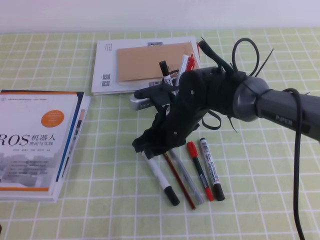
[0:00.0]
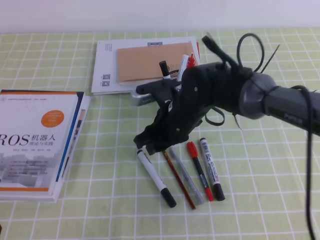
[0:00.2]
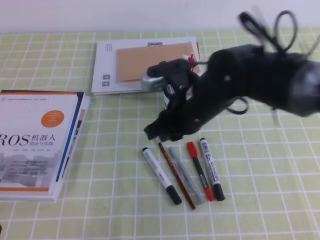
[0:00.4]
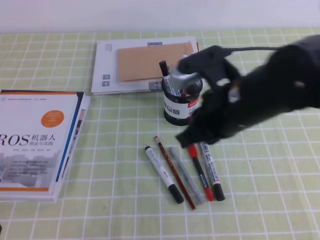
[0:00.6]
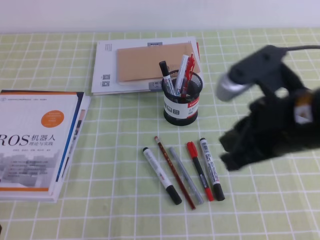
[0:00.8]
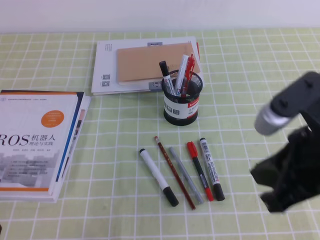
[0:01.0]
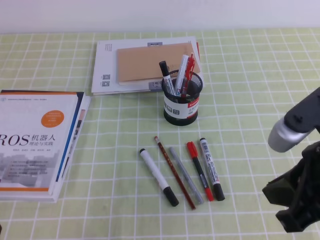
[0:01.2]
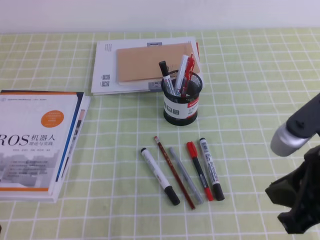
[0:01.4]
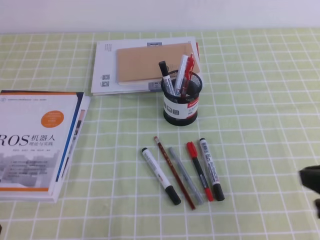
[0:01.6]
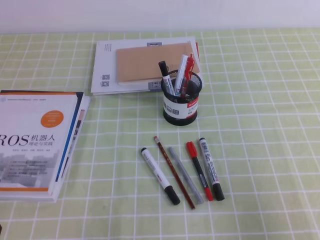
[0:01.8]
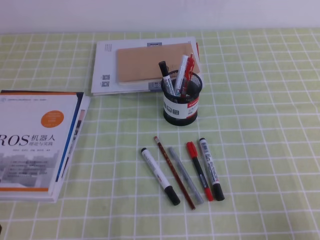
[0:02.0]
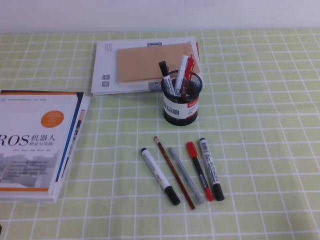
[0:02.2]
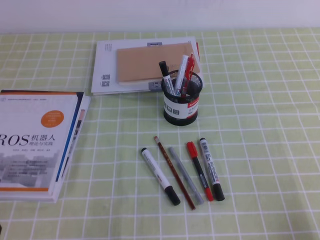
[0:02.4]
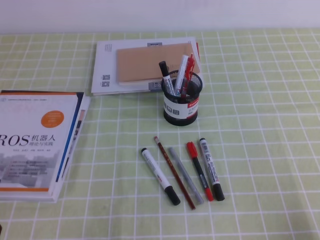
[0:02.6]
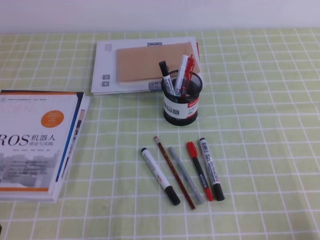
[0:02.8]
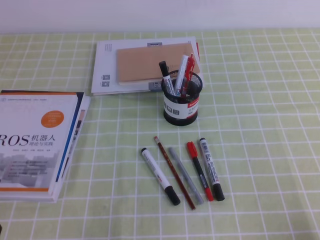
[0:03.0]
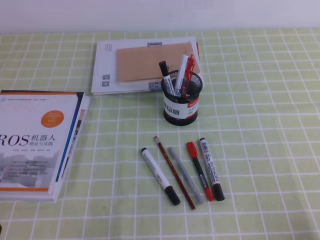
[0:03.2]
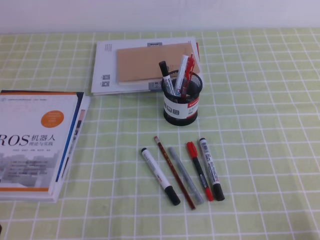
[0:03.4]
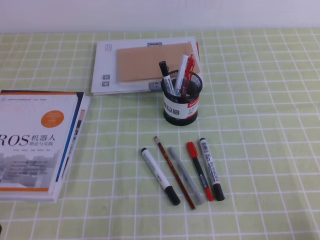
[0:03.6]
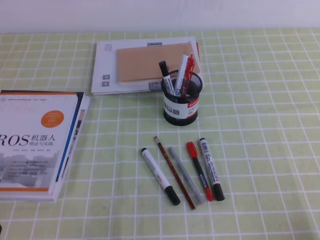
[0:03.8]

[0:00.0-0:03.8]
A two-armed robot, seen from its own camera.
Step, 0:00.0 to 0:03.8: Pick up the pen from the pen holder.
0:00.0 to 0:01.2: The right gripper goes about 30 cm backward, to the right and upward, and closes its fingers.
0:01.2 to 0:02.6: The right gripper travels downward, to the right and backward by approximately 20 cm.

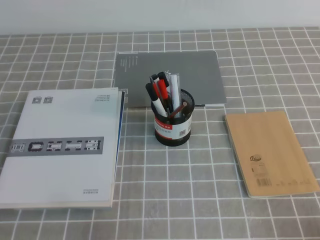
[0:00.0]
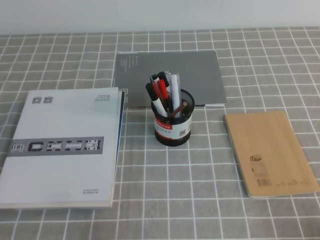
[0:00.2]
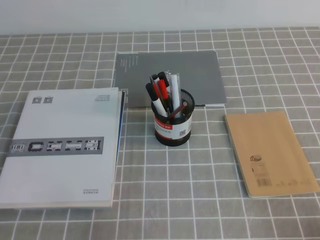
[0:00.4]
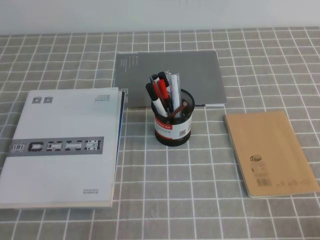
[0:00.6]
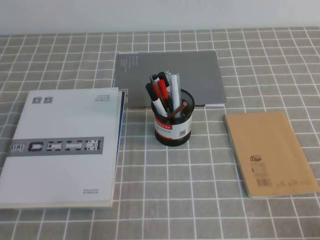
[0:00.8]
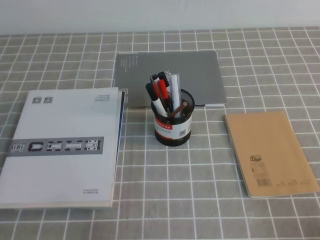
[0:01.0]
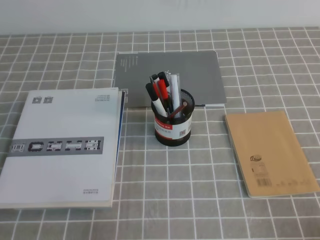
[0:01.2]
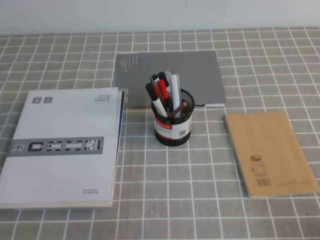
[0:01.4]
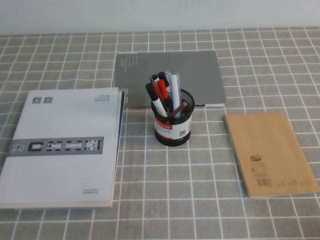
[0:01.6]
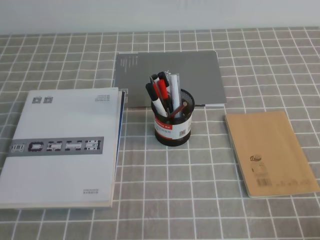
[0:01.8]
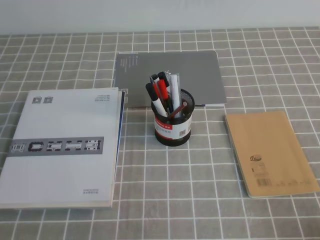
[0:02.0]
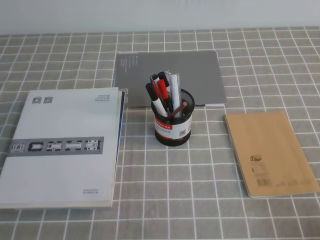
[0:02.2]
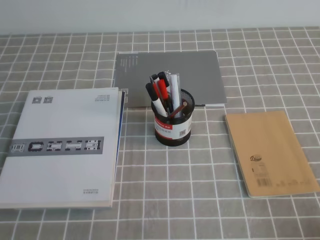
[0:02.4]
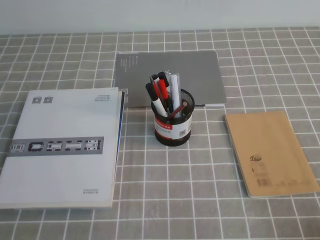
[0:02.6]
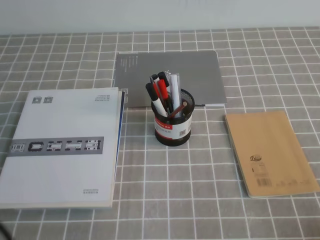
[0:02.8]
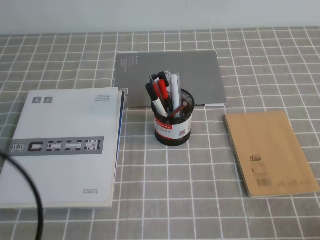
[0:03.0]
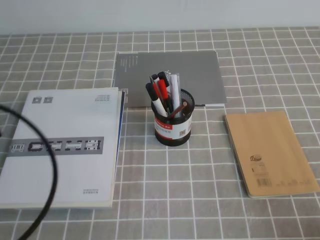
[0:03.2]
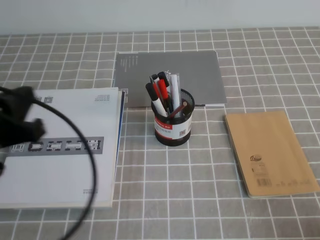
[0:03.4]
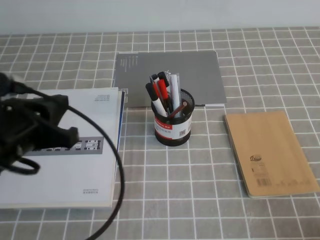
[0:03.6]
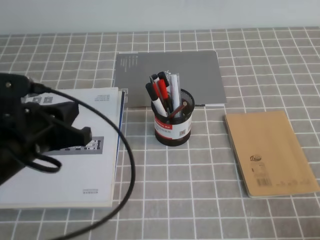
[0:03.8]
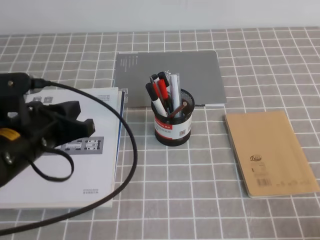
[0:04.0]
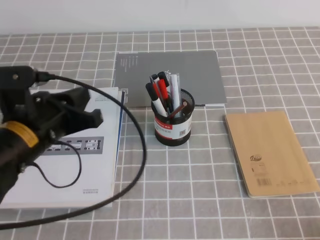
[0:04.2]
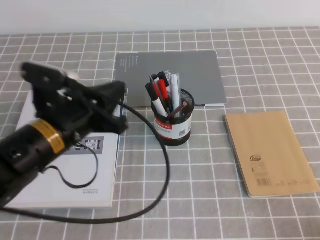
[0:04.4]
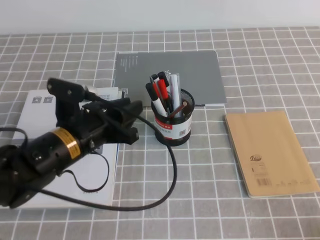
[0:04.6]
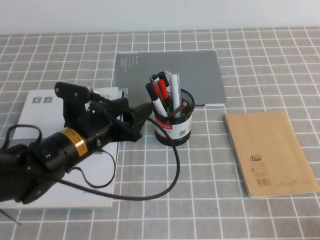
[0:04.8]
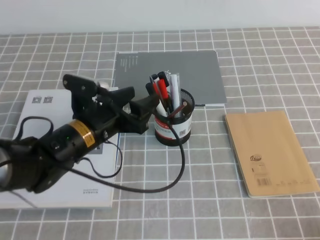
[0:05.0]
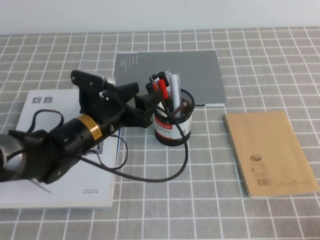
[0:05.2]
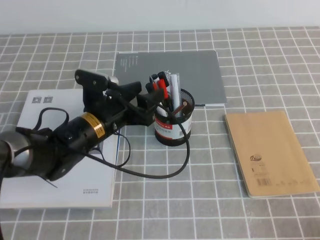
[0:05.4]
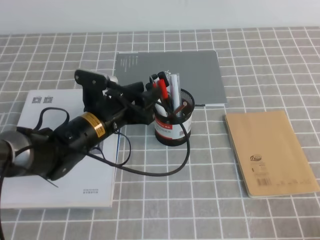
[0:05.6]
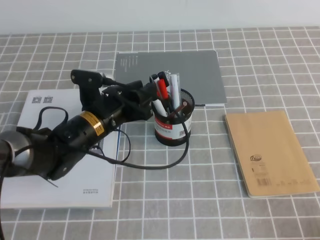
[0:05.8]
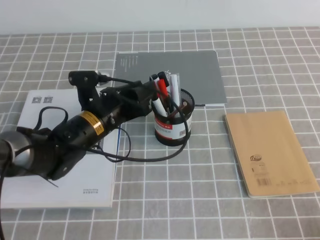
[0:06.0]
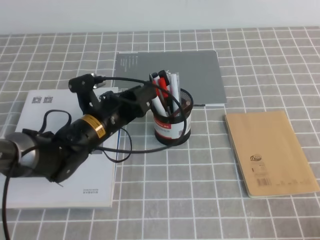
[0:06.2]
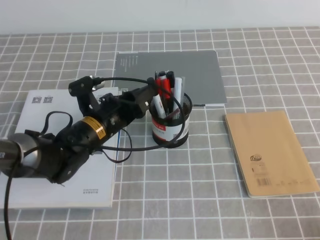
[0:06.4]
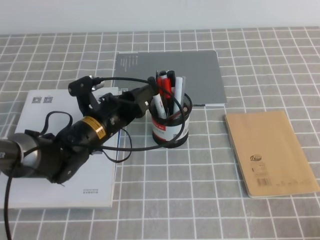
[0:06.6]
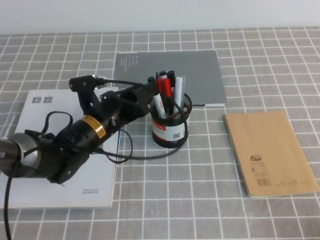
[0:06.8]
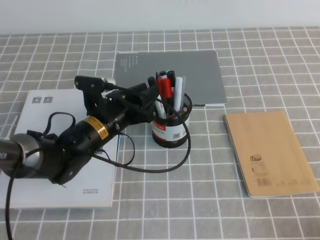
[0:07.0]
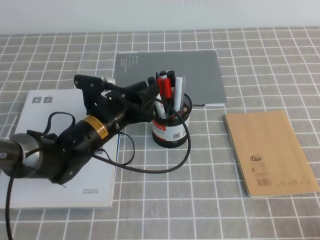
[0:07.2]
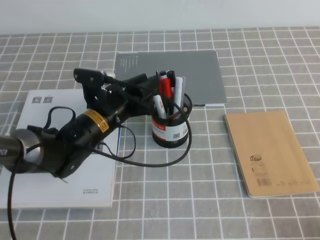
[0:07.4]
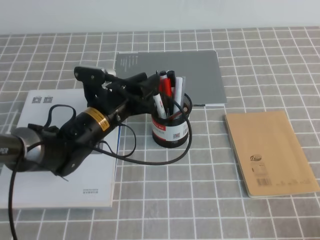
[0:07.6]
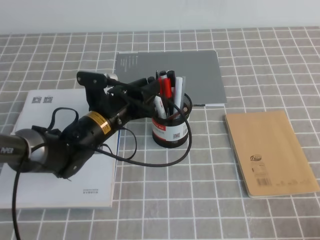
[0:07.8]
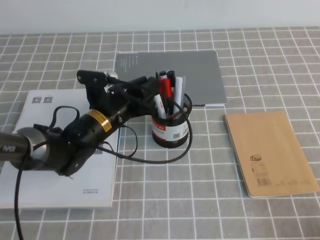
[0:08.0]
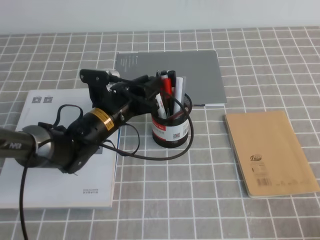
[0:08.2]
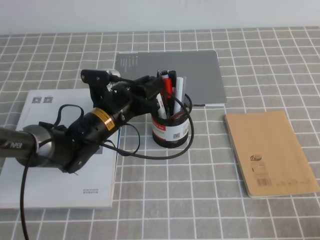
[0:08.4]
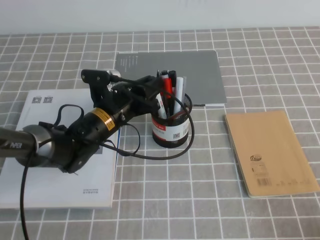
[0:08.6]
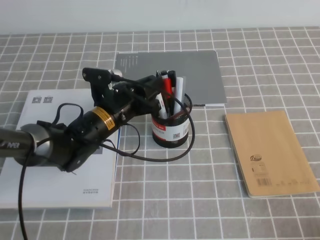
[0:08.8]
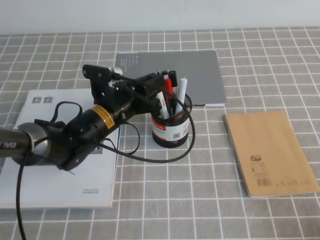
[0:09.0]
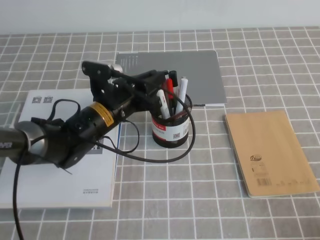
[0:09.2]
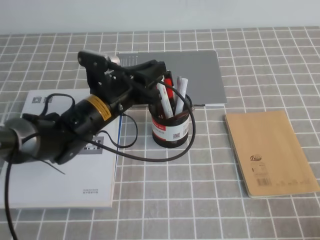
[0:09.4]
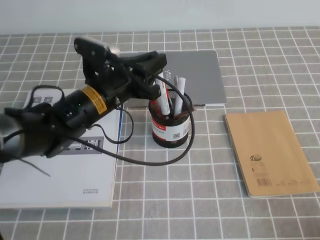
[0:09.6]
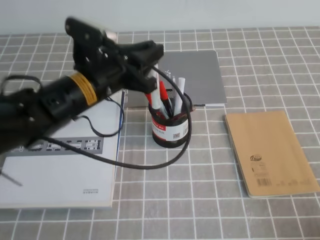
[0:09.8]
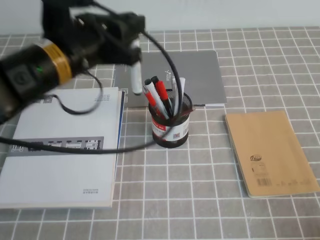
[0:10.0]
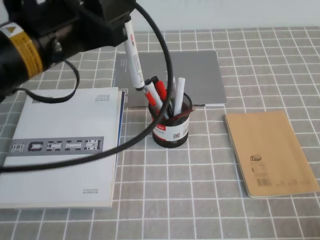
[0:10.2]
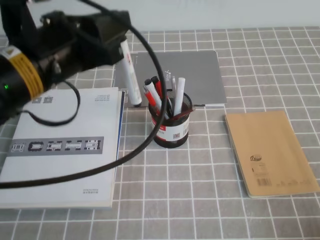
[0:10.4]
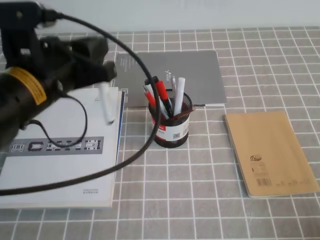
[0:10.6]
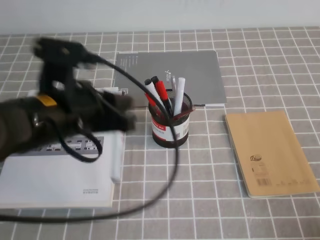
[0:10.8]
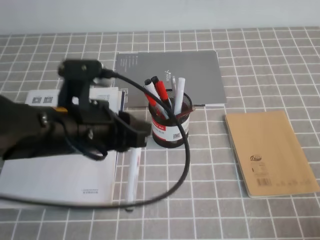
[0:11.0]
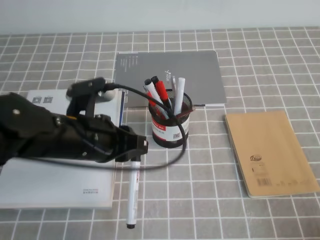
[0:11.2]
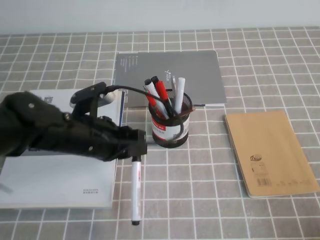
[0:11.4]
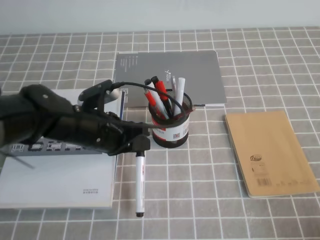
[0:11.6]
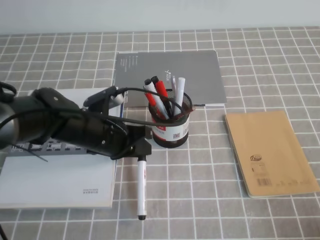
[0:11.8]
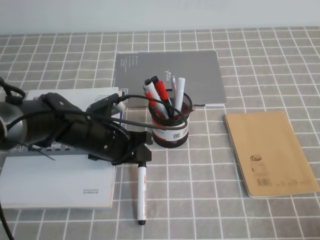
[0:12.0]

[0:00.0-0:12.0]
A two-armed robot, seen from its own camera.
0:01.6 to 0:03.0: The left gripper heads upward, covering about 10 cm.
0:03.0 to 0:04.4: The left gripper travels forward and to the right by some 20 cm.
0:04.4 to 0:06.0: The left gripper heads forward and downward, covering some 10 cm, and opens.
0:06.0 to 0:09.0: The grippers make only small movements.
0:09.0 to 0:10.4: The left gripper heads upward and backward, covering approximately 20 cm.
0:10.4 to 0:12.0: The left gripper goes roughly 20 cm downward.

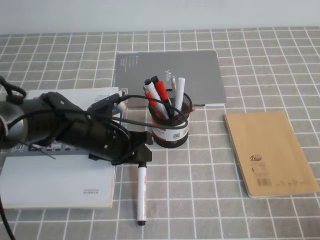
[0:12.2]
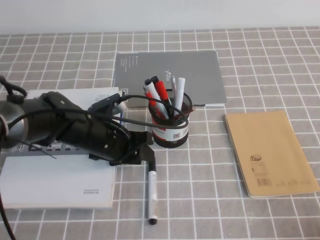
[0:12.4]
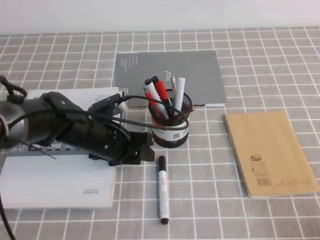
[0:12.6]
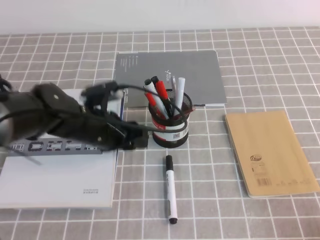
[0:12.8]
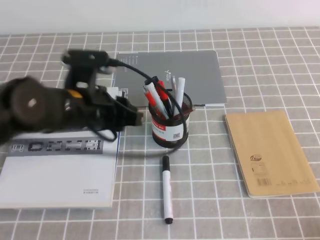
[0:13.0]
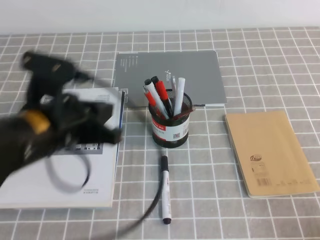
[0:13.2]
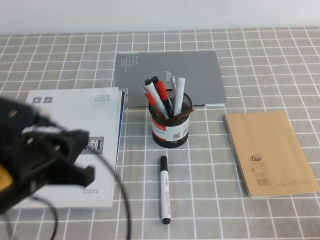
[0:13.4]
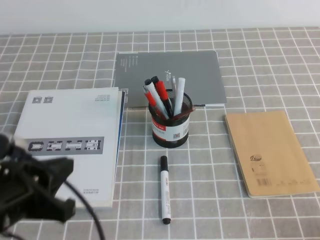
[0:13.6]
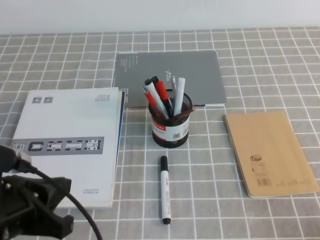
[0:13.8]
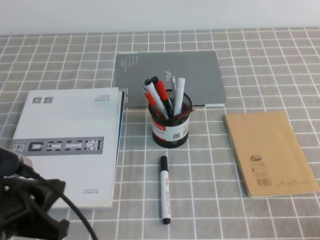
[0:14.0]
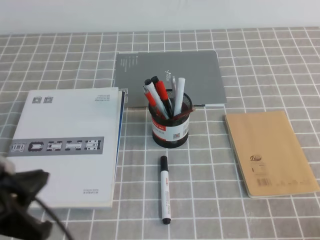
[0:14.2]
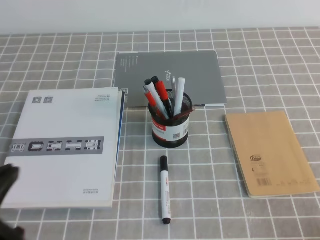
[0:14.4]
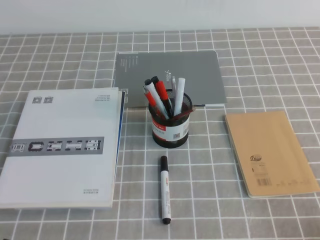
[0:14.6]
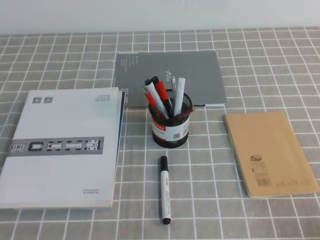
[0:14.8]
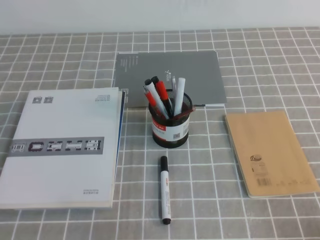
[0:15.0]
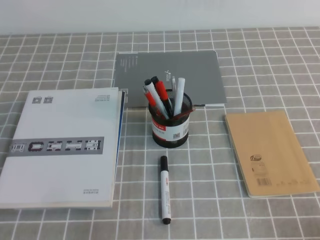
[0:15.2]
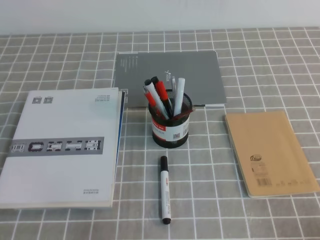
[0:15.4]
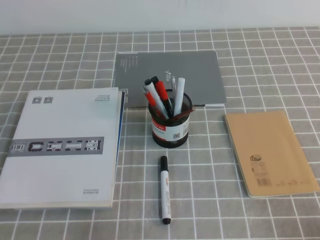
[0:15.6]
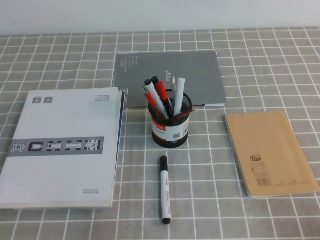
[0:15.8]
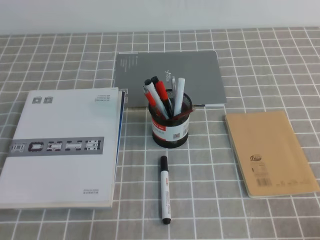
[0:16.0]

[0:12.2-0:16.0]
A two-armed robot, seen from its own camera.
Step, 0:12.2 to 0:16.0: Pick up the pen from the pen holder.
0:12.2 to 0:13.4: The left gripper travels backward, upward and to the left by roughly 20 cm.
0:13.4 to 0:14.8: The left gripper travels backward, to the left and downward by approximately 15 cm.
